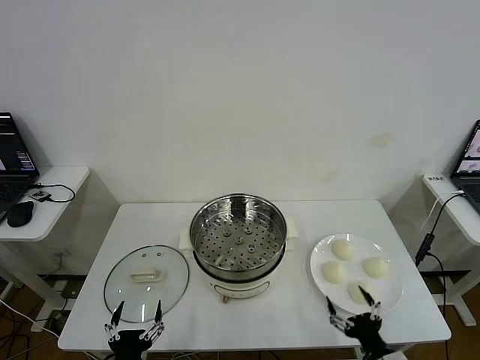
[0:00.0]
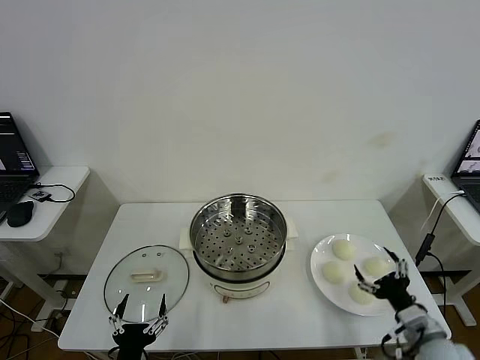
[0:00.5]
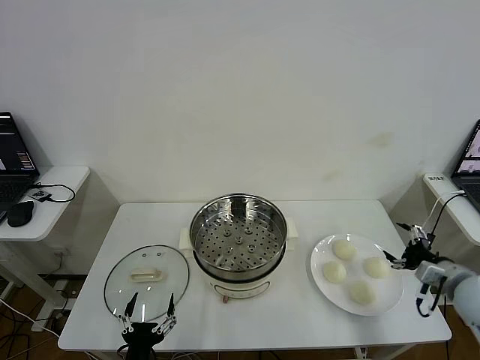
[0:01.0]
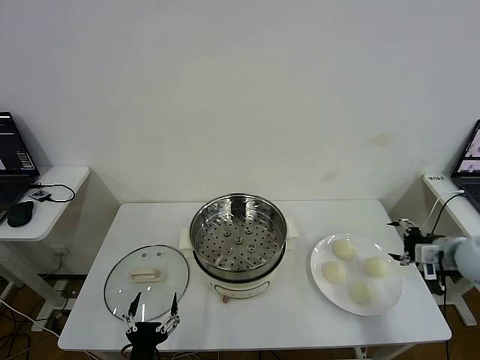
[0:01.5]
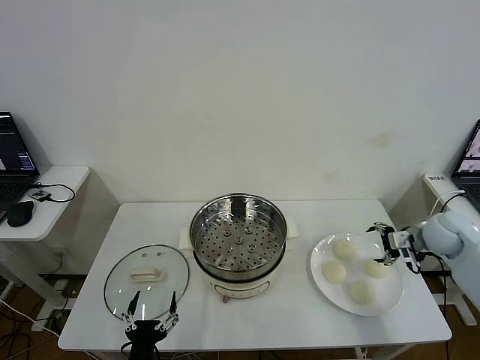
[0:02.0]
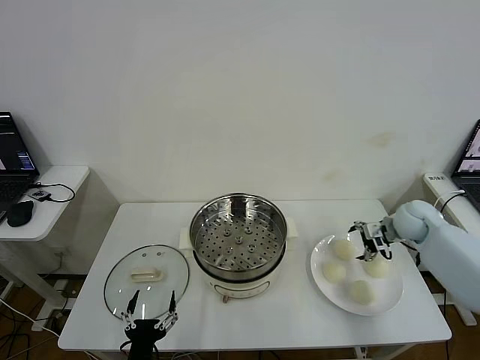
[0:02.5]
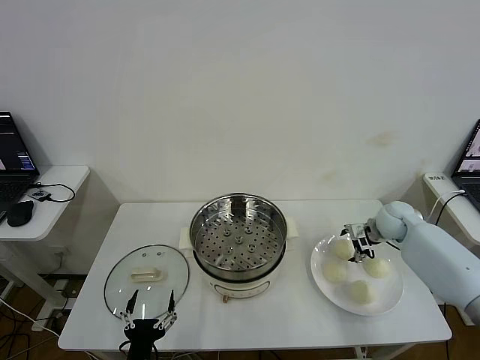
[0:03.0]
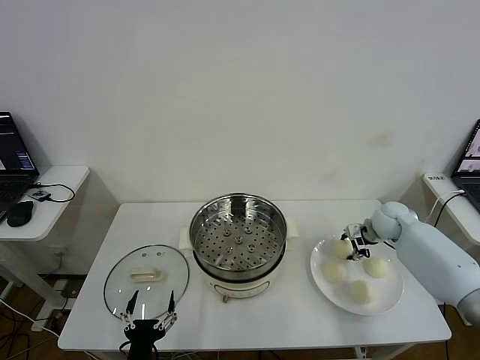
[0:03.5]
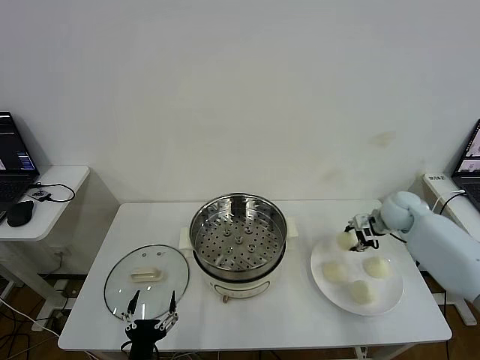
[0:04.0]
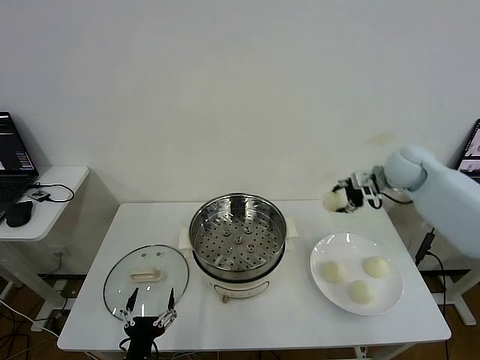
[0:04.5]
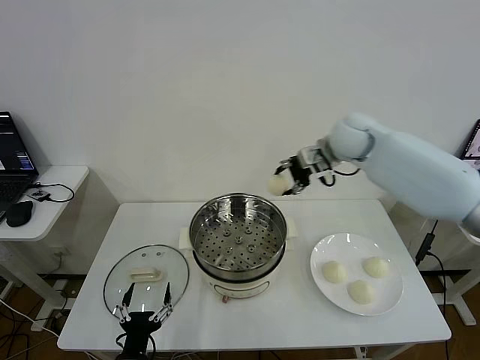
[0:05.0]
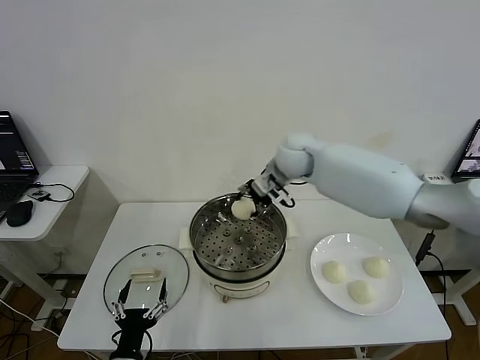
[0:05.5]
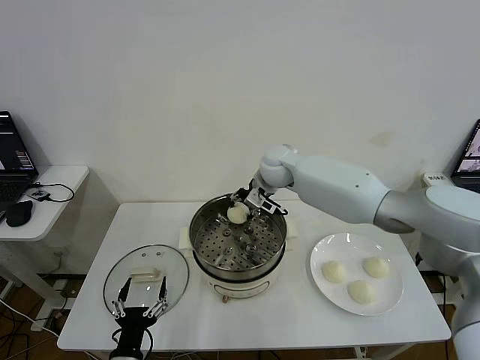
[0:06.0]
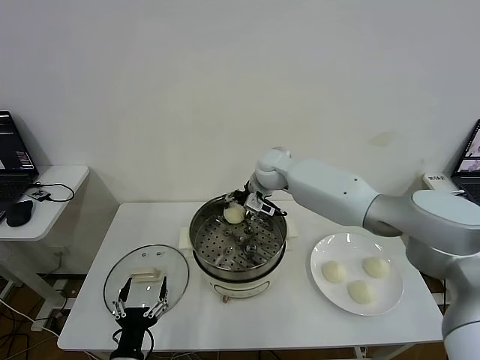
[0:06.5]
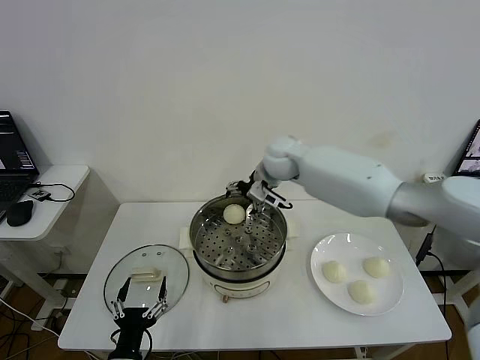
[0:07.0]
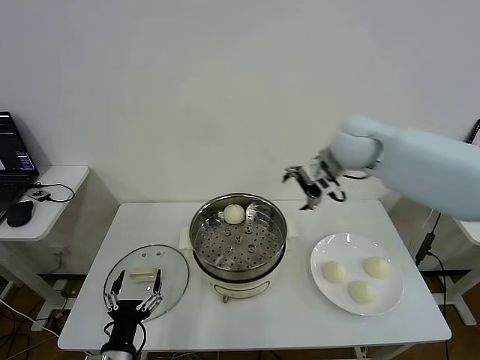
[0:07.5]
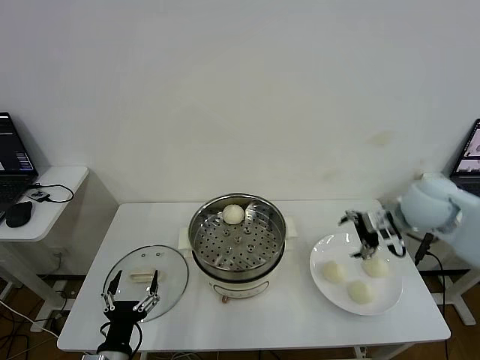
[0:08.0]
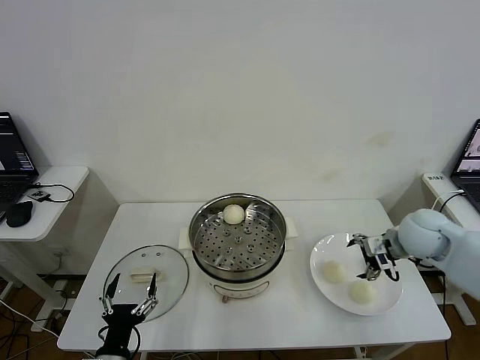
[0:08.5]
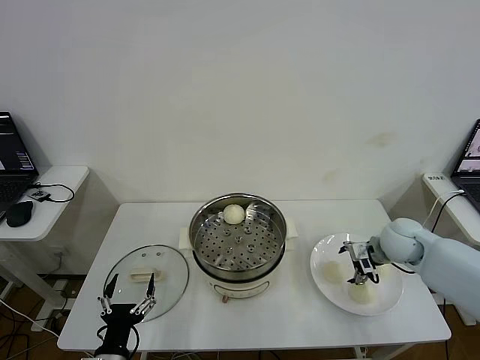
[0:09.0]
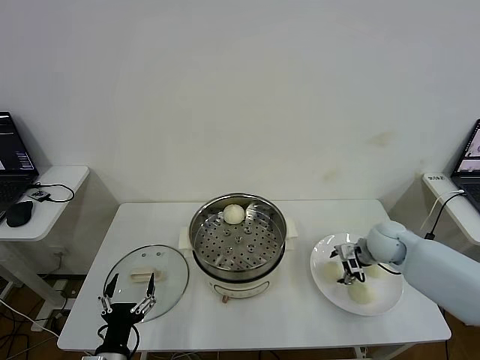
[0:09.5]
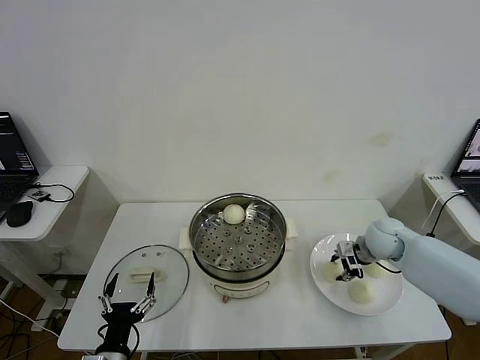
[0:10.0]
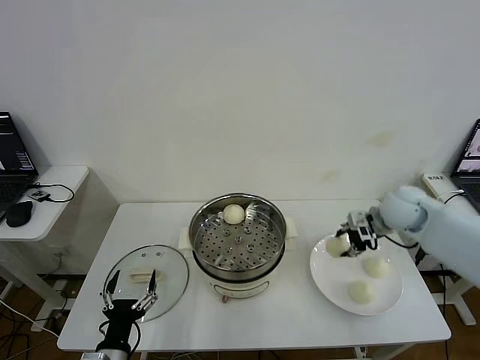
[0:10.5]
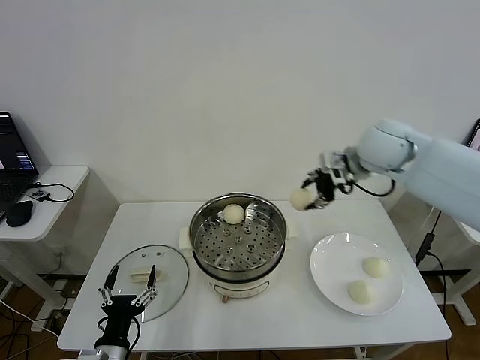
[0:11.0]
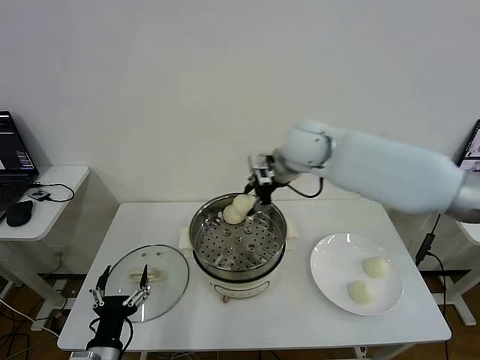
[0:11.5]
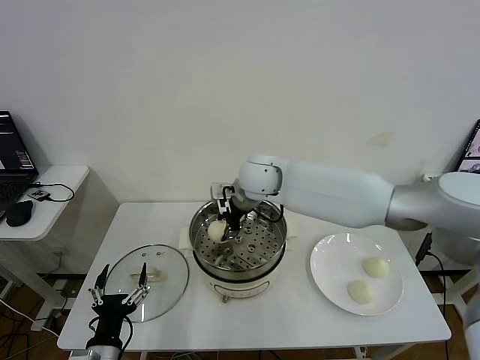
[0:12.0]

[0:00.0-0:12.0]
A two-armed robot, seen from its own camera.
Step, 0:00.0 to 0:03.5: Grasp the baozi in the plate with right gripper.
Step, 0:04.0 to 0:06.5: Place the baozi on the steamer with right gripper.
Step, 0:07.0 to 0:09.5: Grasp the baozi in the plate with right gripper.
0:02.0 to 0:04.0: The right gripper shifts some 10 cm forward and to the left, and closes its fingers.
0:04.0 to 0:06.0: The right gripper heads to the left, covering some 30 cm.
0:06.0 to 0:08.0: The right gripper heads to the right and backward, covering approximately 30 cm, and opens up.
0:08.0 to 0:10.0: The right gripper shifts some 15 cm downward, and closes its fingers.
0:10.0 to 0:12.0: The right gripper heads to the left and upward, covering about 35 cm.

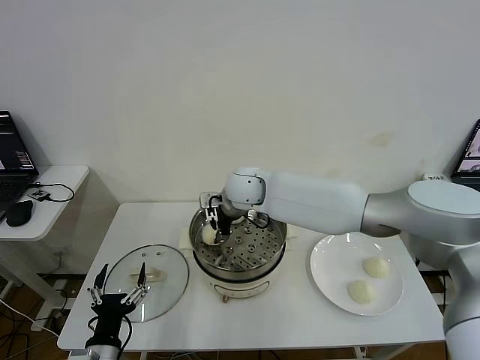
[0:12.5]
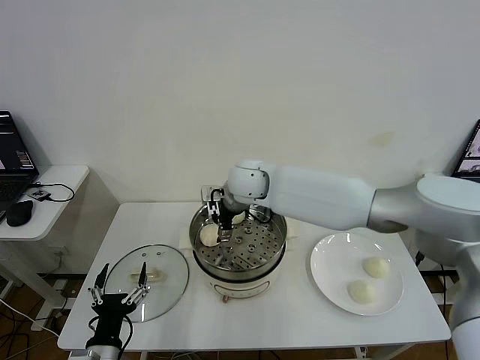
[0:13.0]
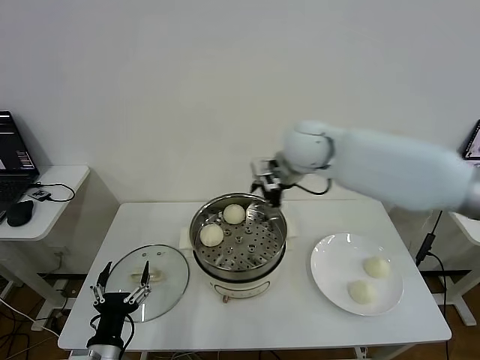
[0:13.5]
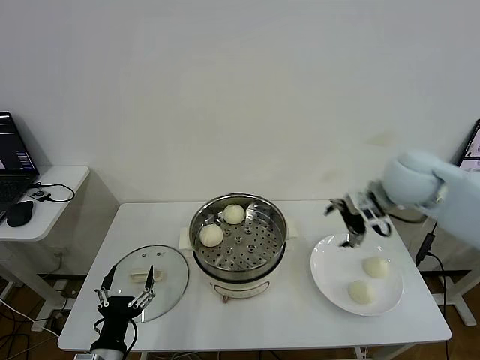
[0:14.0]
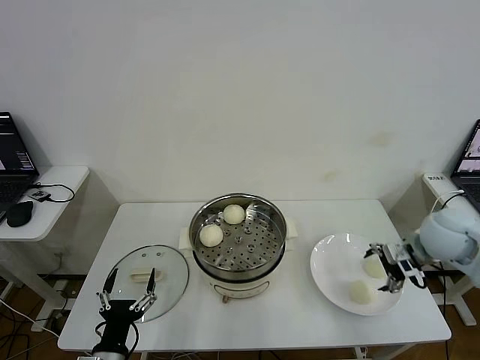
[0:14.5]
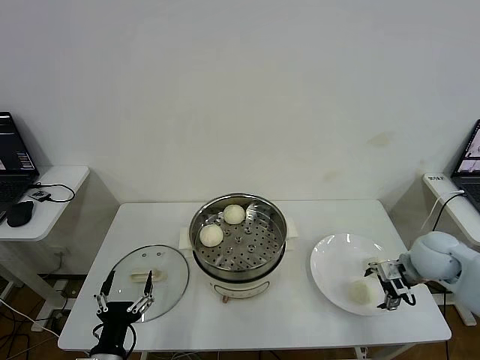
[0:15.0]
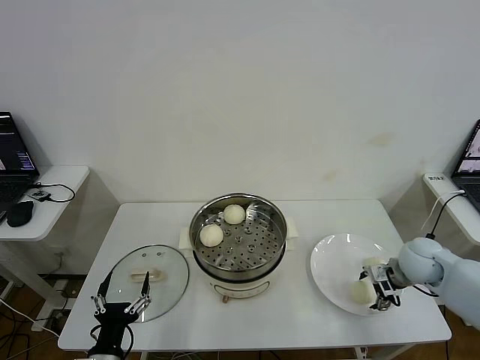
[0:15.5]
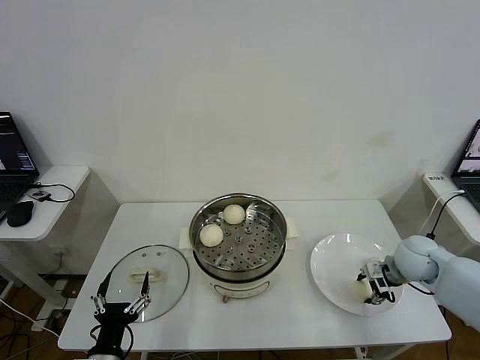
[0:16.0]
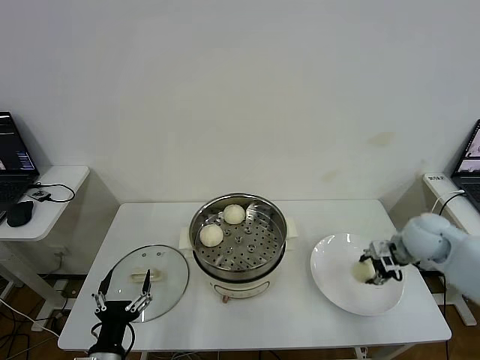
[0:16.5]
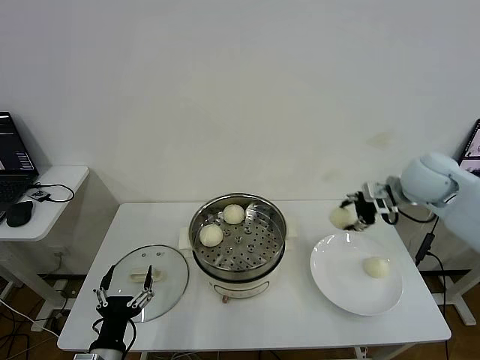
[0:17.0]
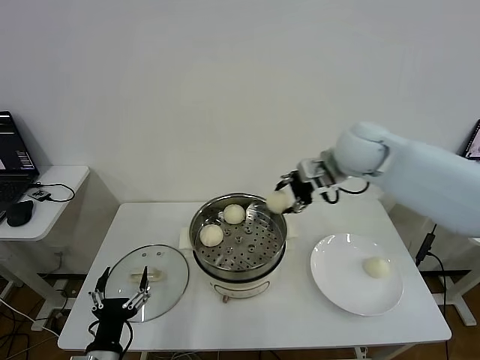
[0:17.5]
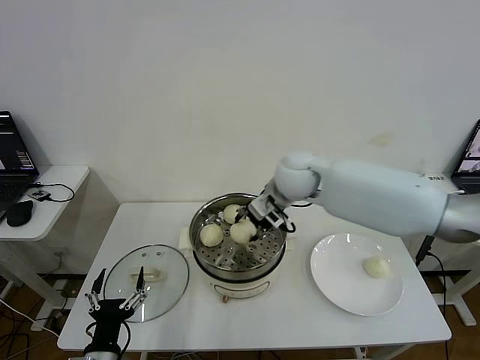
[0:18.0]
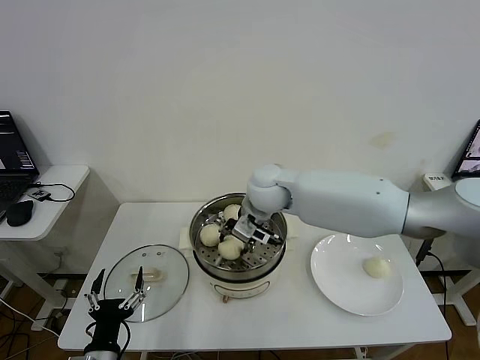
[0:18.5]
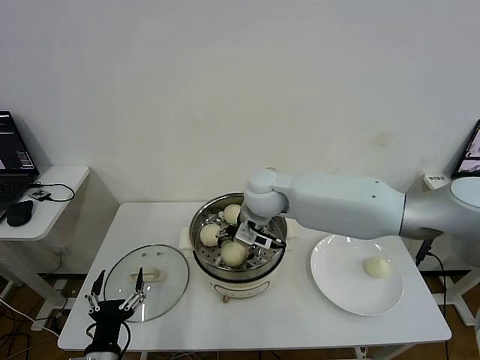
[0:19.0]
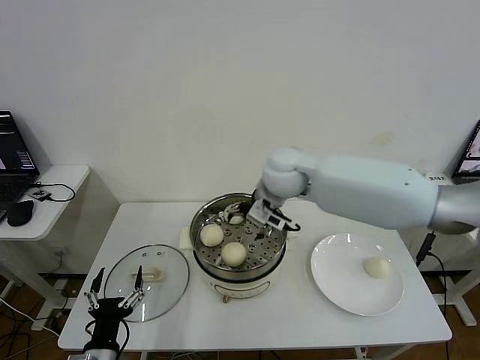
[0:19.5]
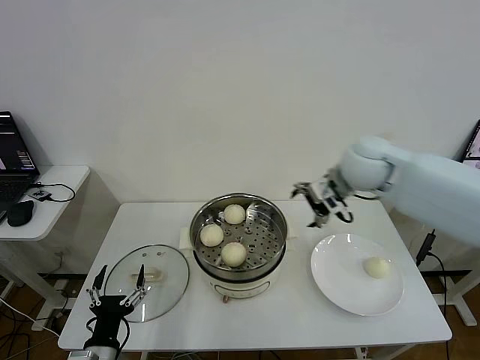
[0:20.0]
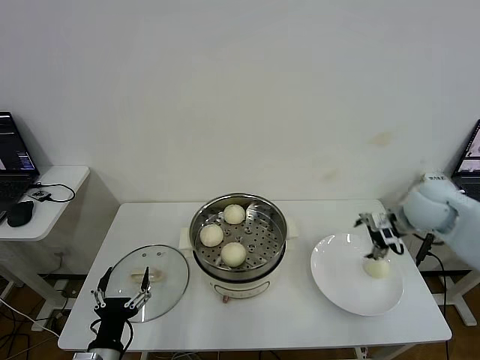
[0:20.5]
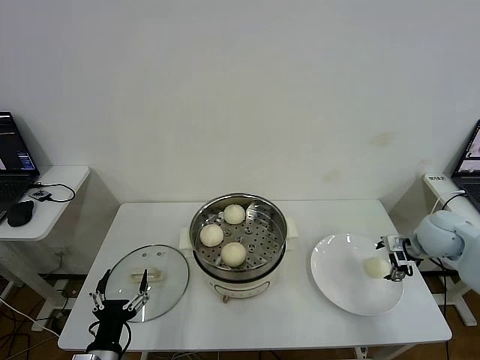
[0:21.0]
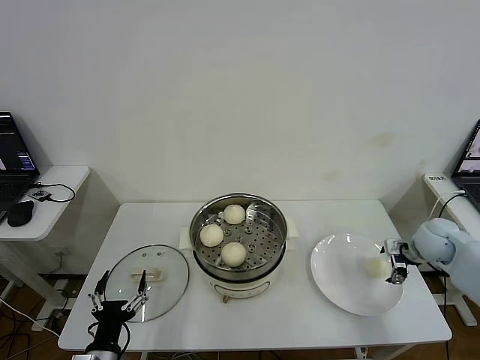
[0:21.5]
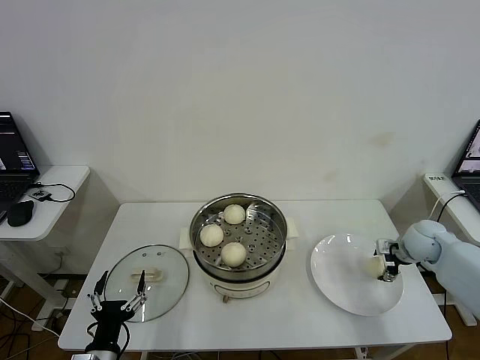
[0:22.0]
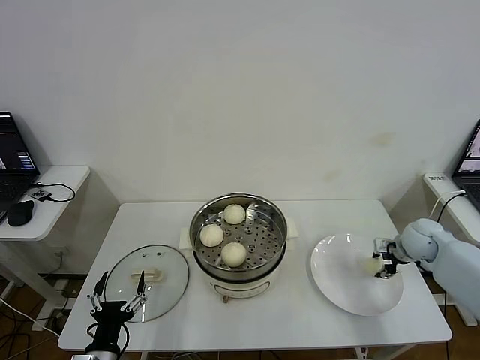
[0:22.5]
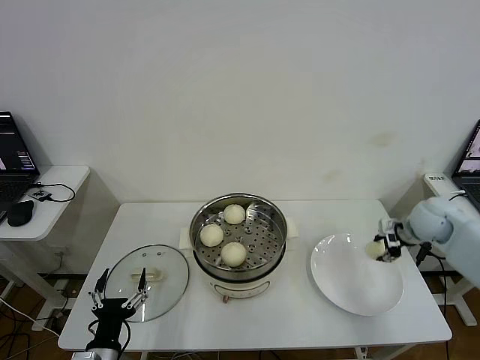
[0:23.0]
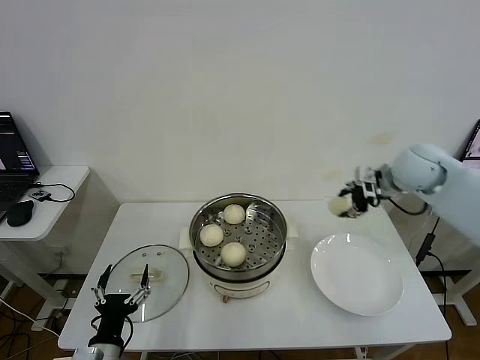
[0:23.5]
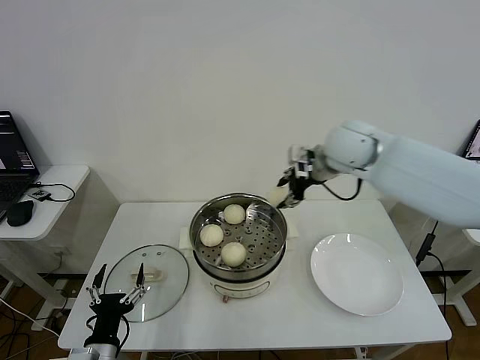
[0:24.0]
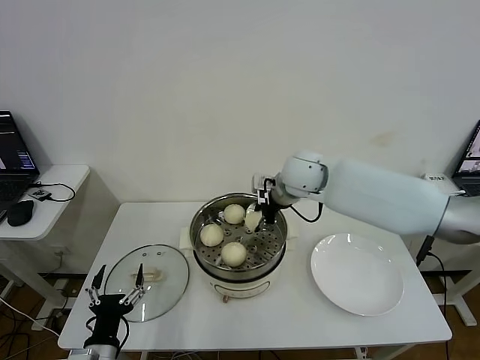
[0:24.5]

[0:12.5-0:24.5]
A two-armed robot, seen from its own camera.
Step, 0:13.0 to 0:16.0: Grasp the baozi in the plate with right gripper.
Step, 0:16.5 to 0:19.0: Place the baozi on the steamer with right gripper.
Step, 0:19.5 to 0:22.0: Grasp the baozi in the plate with right gripper.
0:12.5 to 0:14.5: The right gripper heads to the right, covering some 40 cm, and opens.
0:14.5 to 0:16.5: The right gripper heads downward, covering approximately 5 cm, and closes its fingers.
0:16.5 to 0:18.5: The right gripper heads to the left, covering about 35 cm.
0:18.5 to 0:20.5: The right gripper moves to the right, some 30 cm, and opens.
0:20.5 to 0:22.5: The right gripper travels downward and to the right by roughly 15 cm, and closes its fingers.
0:22.5 to 0:24.5: The right gripper is displaced to the left and upward by approximately 35 cm.

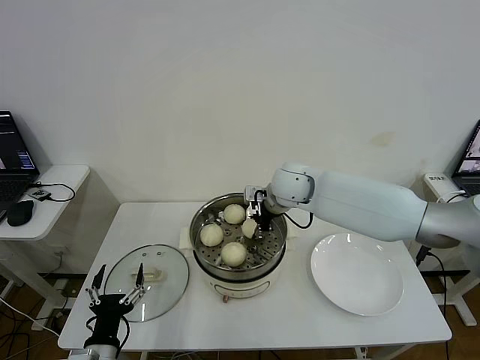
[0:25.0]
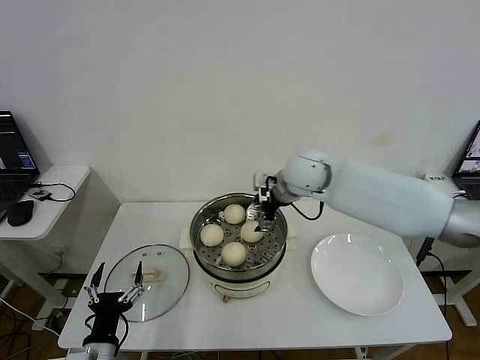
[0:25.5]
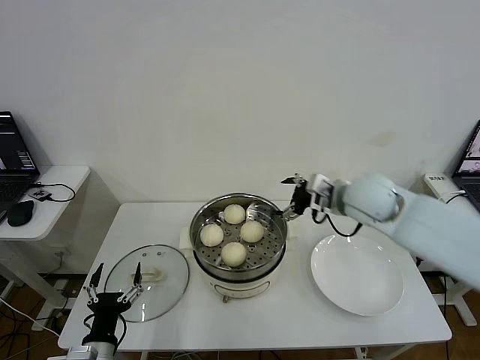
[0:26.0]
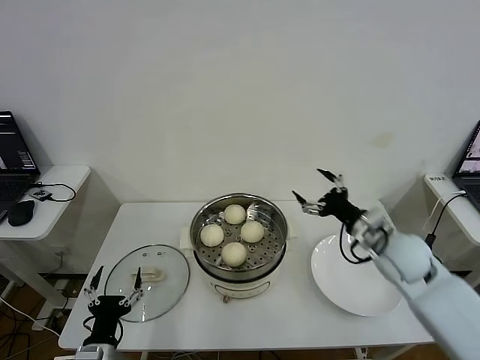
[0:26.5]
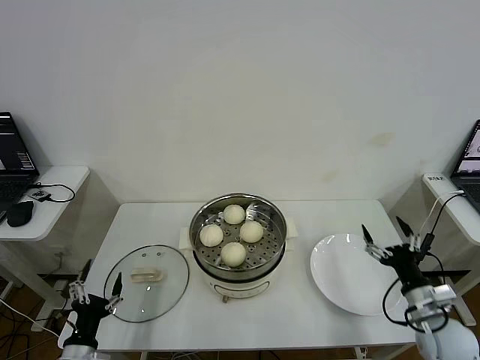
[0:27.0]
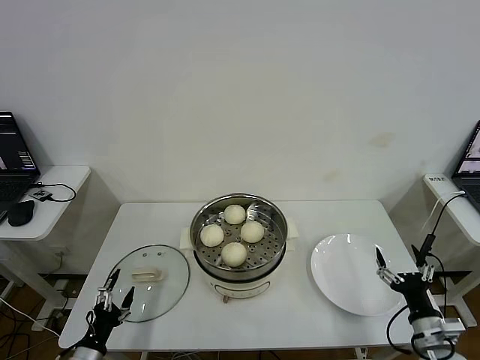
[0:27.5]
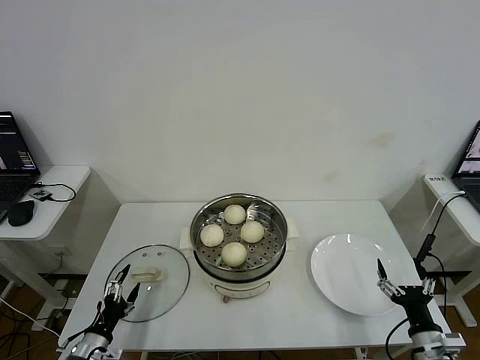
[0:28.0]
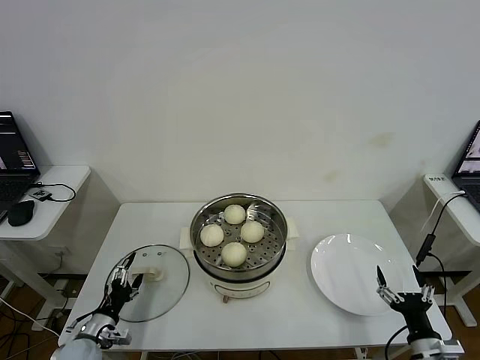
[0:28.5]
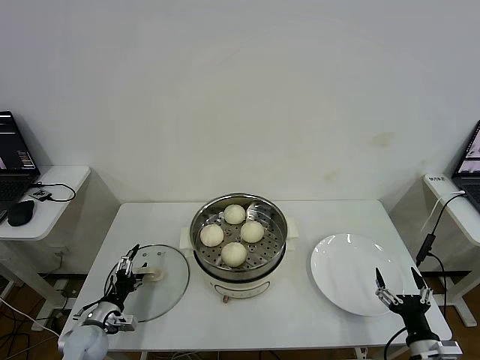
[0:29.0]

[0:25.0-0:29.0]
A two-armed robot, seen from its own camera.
0:25.0 to 0:27.0: The left gripper goes some 5 cm to the left; the right gripper heads to the right, backward and downward, covering about 40 cm, and opens.
0:27.0 to 0:29.0: The left gripper moves forward and downward, roughly 15 cm. The right gripper shifts roughly 10 cm backward and downward.
